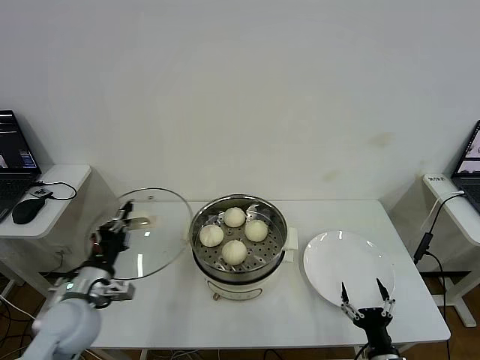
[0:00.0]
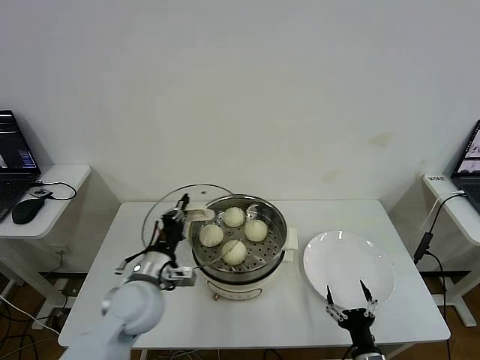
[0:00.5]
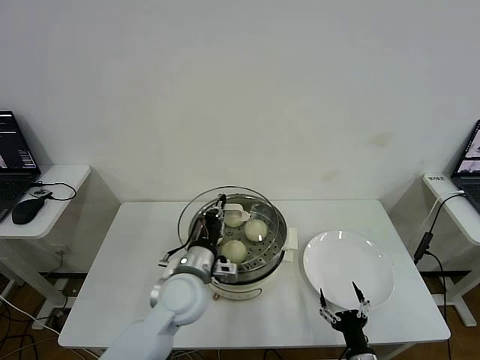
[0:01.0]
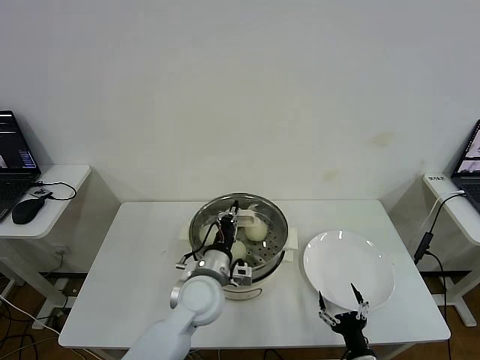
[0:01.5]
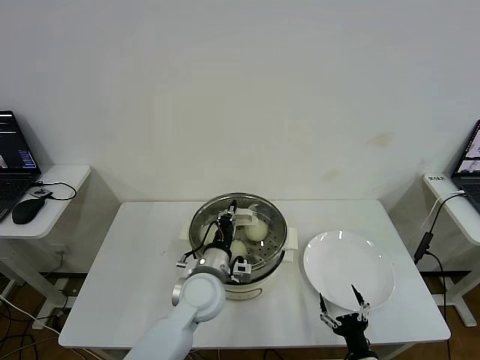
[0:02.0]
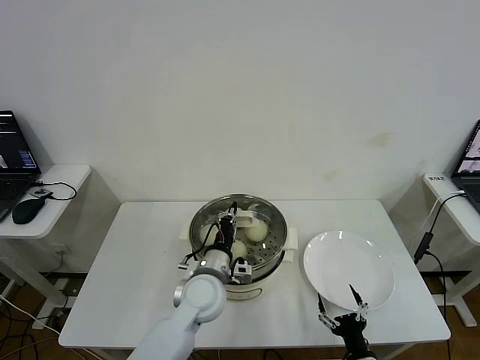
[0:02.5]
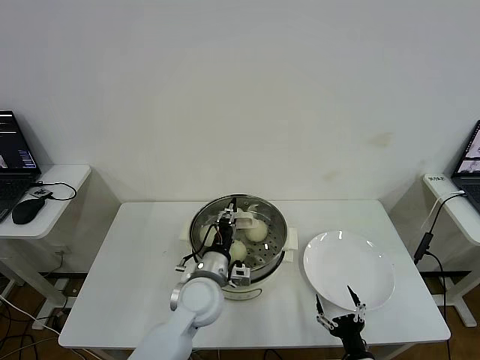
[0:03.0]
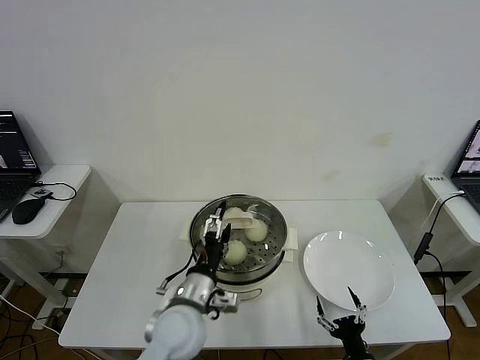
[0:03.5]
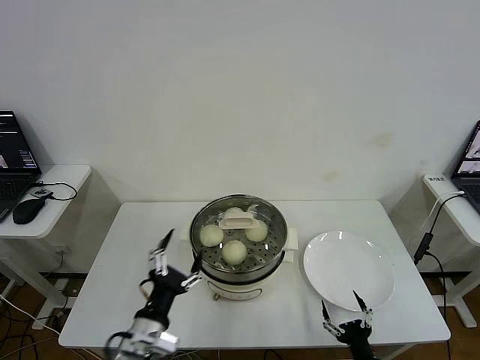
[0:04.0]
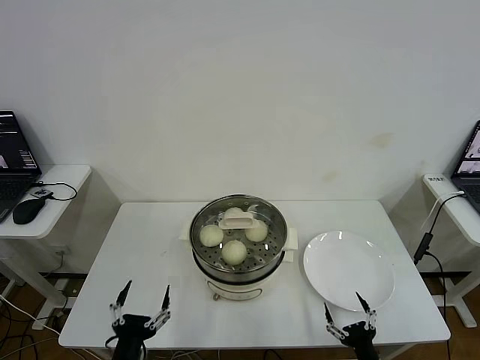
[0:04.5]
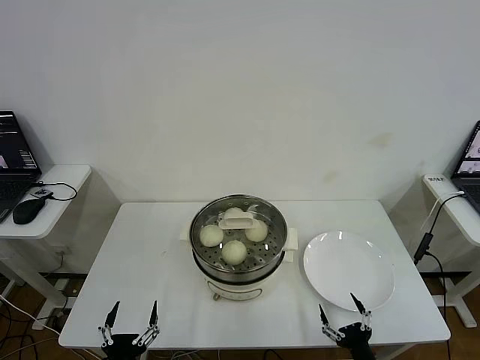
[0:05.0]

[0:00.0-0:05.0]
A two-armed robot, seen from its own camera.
Step, 0:00.0 to 0:03.0: Place the pot lid on the steamer with left gripper.
0:00.0 to 0:02.5: The left gripper is displaced to the right by roughly 25 cm.
0:02.5 to 0:05.0: The left gripper goes approximately 30 cm backward and to the left, and opens up.

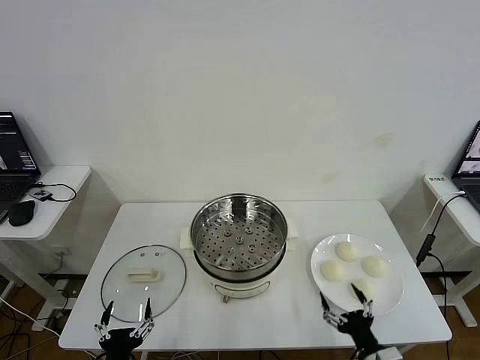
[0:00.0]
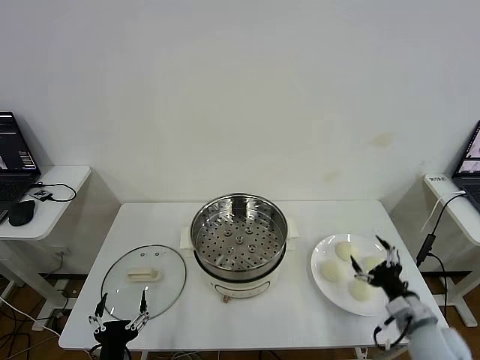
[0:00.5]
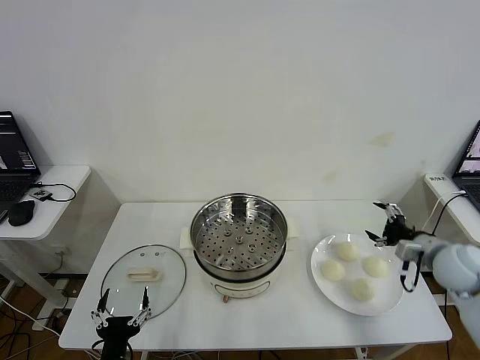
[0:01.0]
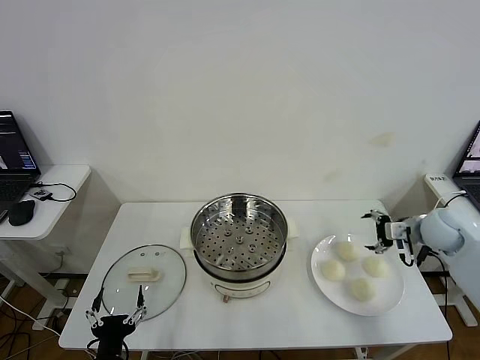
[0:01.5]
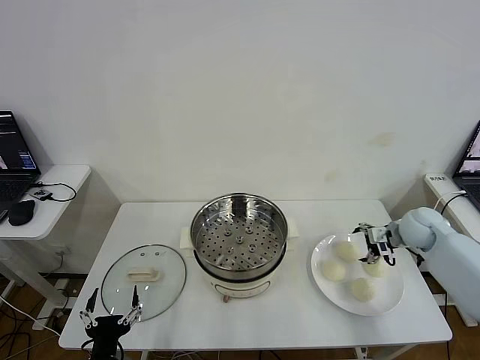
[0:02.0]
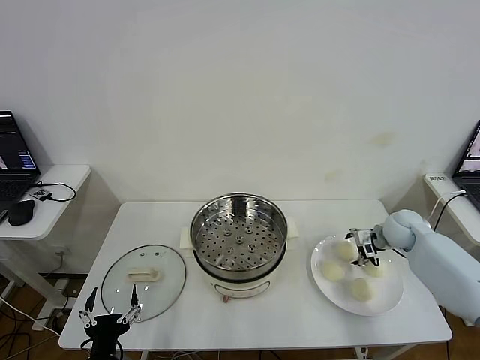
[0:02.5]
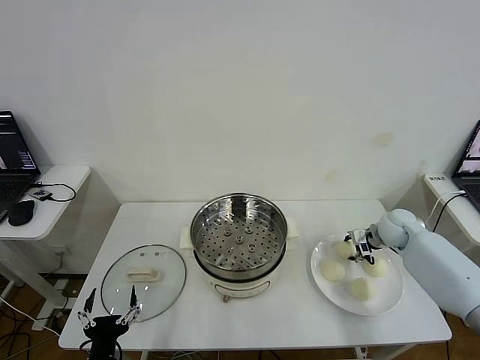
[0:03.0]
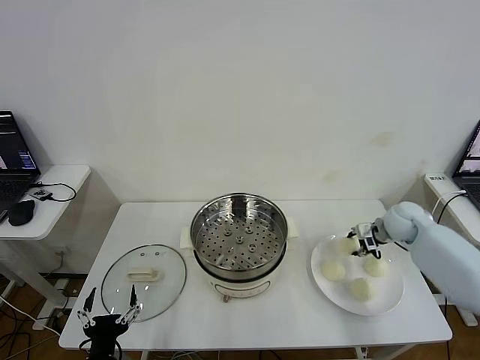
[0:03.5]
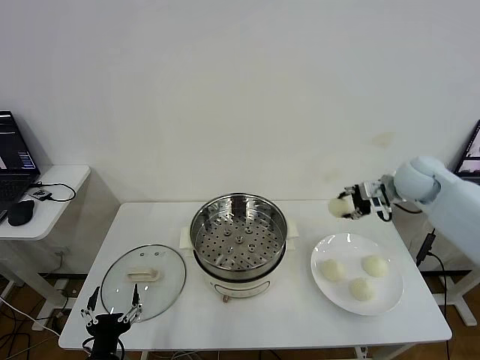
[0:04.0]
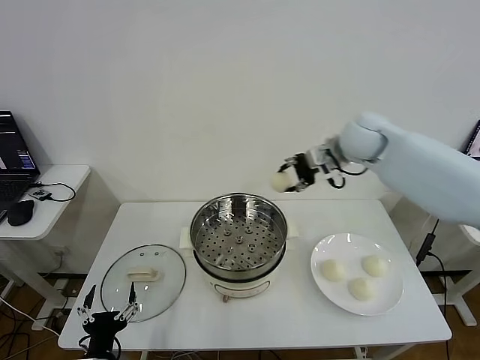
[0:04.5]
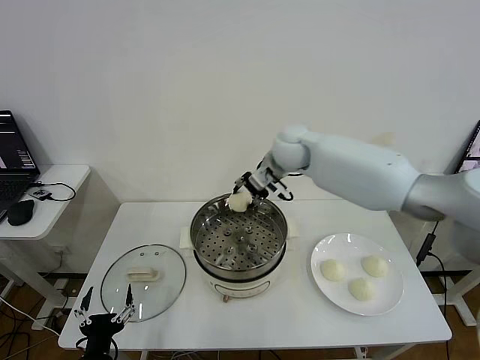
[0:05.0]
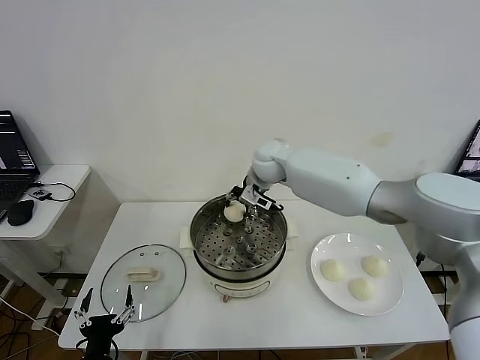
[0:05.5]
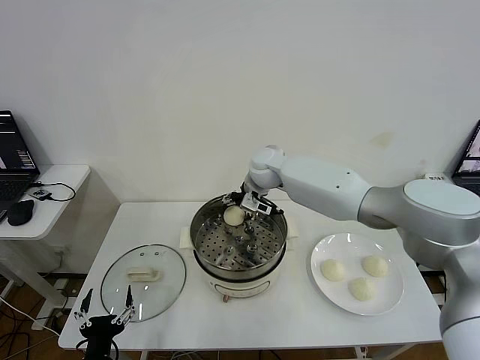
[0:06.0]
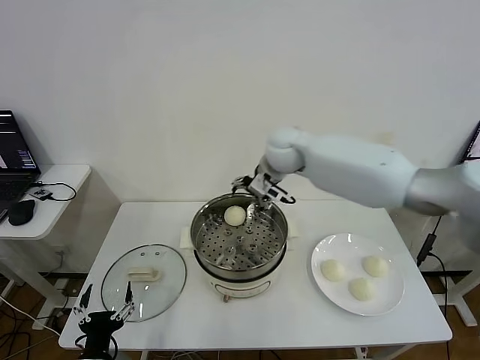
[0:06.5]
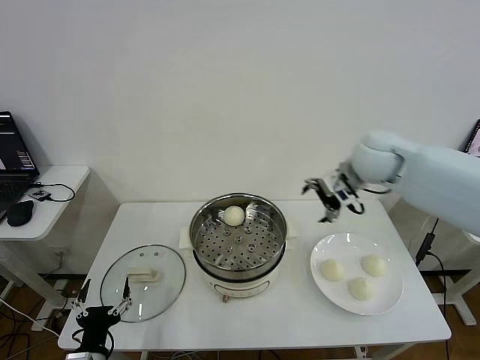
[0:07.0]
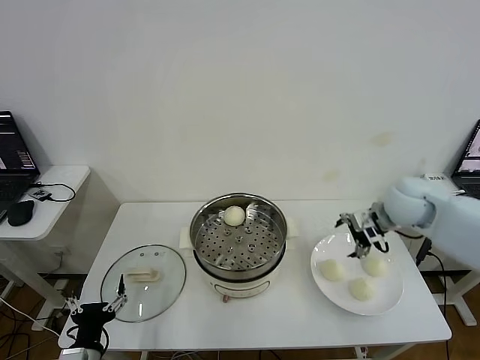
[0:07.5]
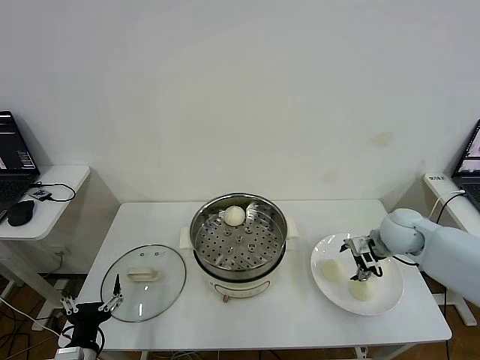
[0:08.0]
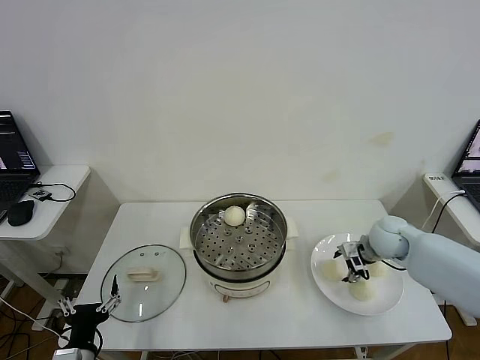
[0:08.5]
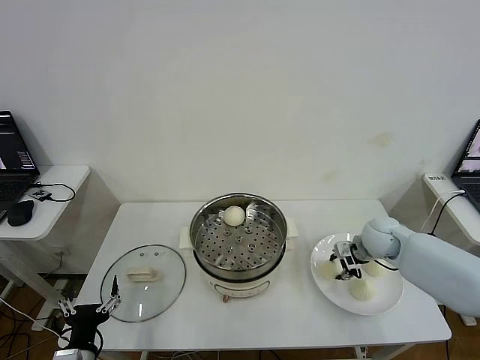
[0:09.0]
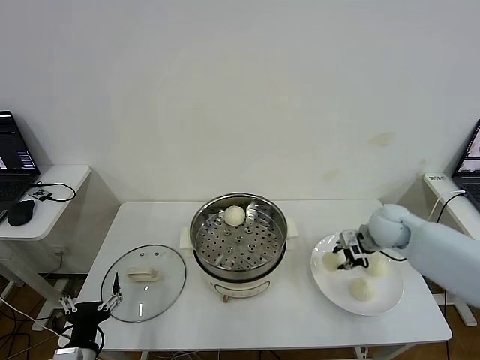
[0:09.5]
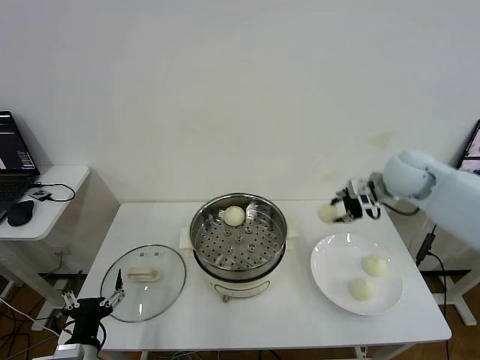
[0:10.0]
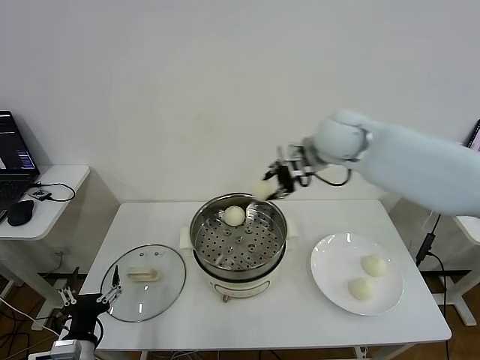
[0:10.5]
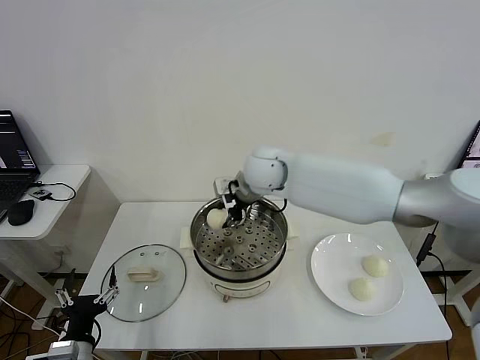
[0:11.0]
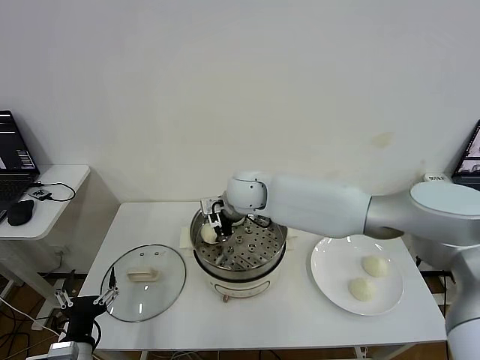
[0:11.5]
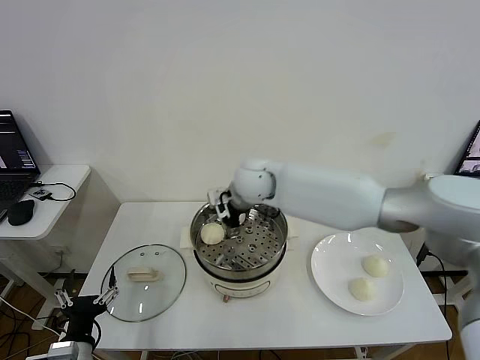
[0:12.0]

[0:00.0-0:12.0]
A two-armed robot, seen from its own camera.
Step, 0:00.0 to 0:03.0: Grasp the baozi in the plate with right gripper.
Step, 0:03.5 to 0:06.0: Place the baozi on the steamer with right gripper.
Step, 0:06.5 to 0:09.0: Grasp the baozi in the plate with right gripper.
Step, 0:09.5 to 0:11.5: Place the baozi on the steamer with right gripper.
0:02.0 to 0:04.0: The right gripper goes approximately 20 cm upward and to the left, and closes its fingers.
0:04.0 to 0:06.0: The right gripper goes roughly 30 cm to the left, and opens its fingers.
0:06.0 to 0:08.0: The right gripper heads to the right and backward, covering approximately 35 cm.
0:08.0 to 0:10.0: The right gripper shifts about 15 cm upward, and closes.
0:10.0 to 0:12.0: The right gripper goes about 25 cm to the left, and opens.

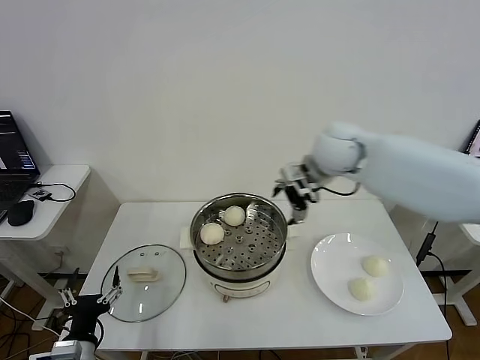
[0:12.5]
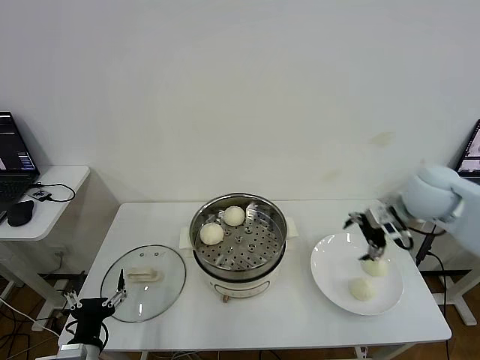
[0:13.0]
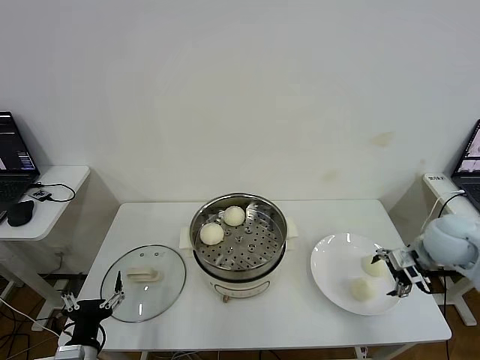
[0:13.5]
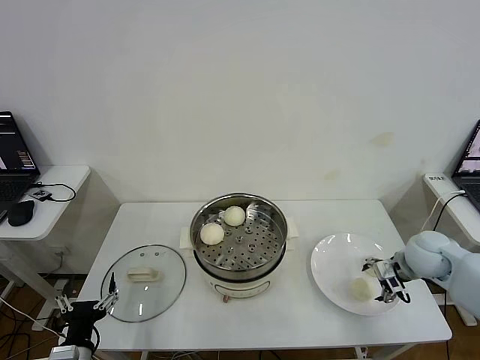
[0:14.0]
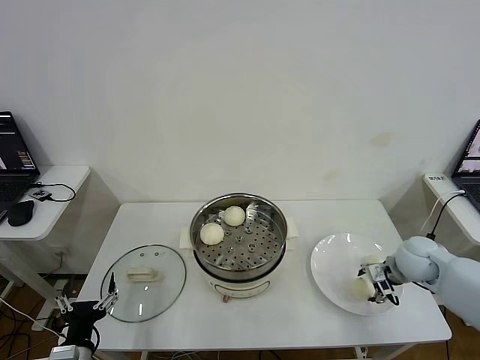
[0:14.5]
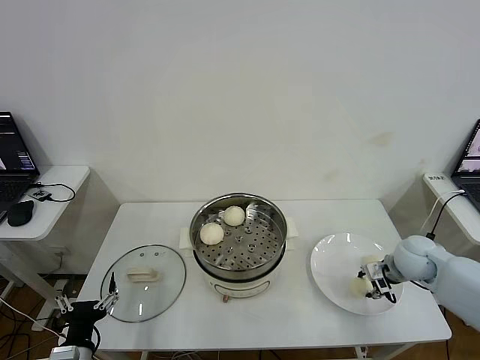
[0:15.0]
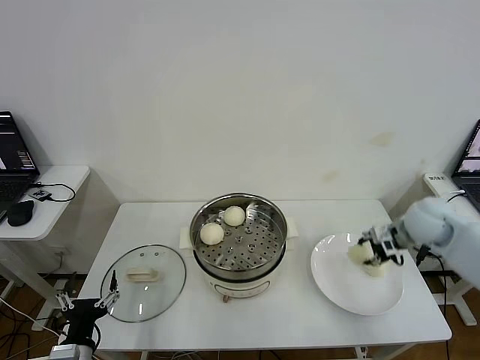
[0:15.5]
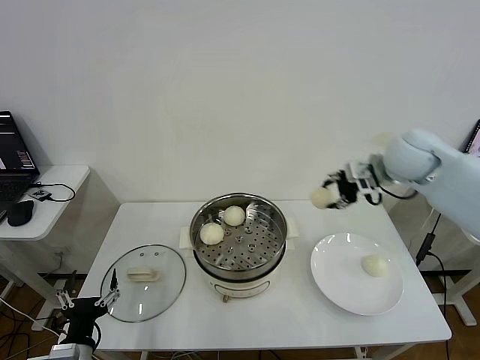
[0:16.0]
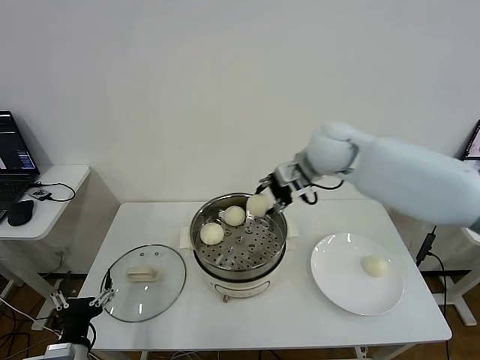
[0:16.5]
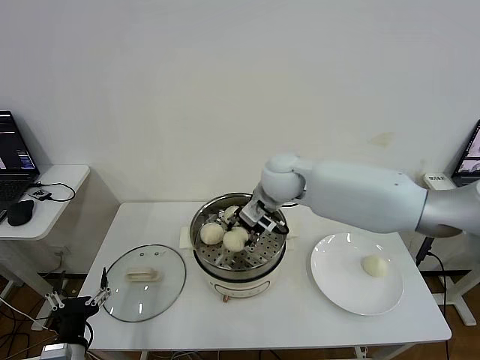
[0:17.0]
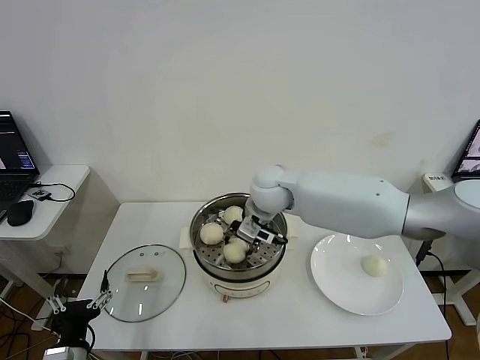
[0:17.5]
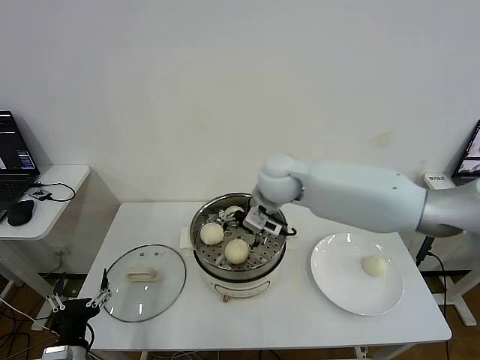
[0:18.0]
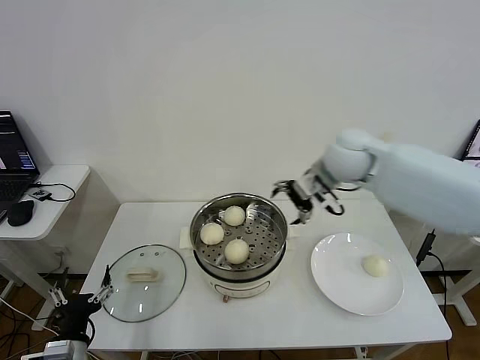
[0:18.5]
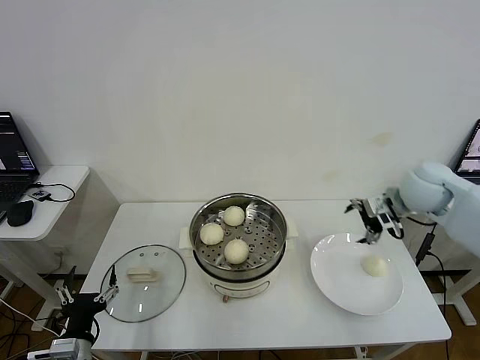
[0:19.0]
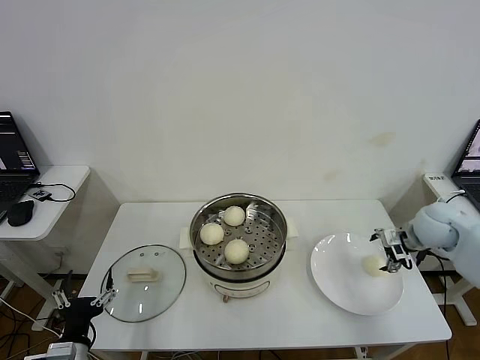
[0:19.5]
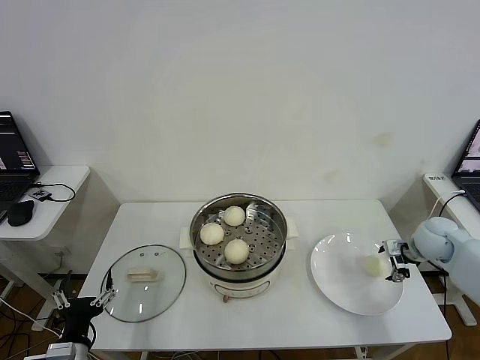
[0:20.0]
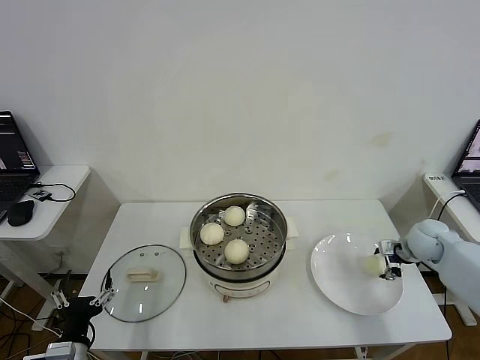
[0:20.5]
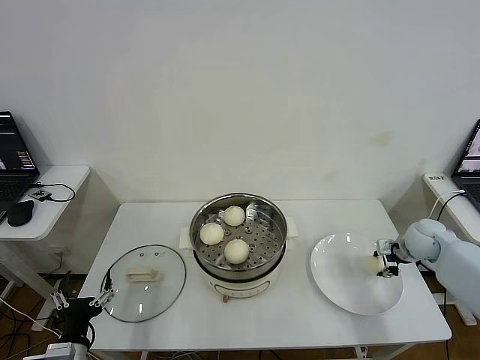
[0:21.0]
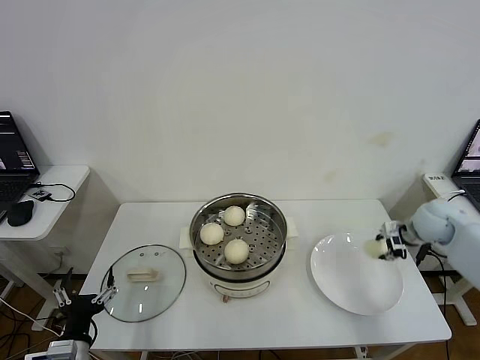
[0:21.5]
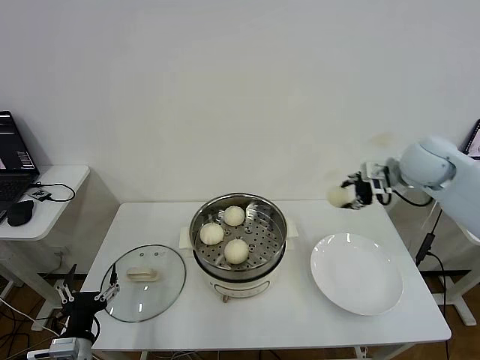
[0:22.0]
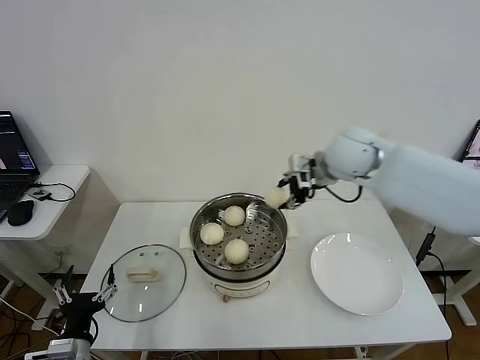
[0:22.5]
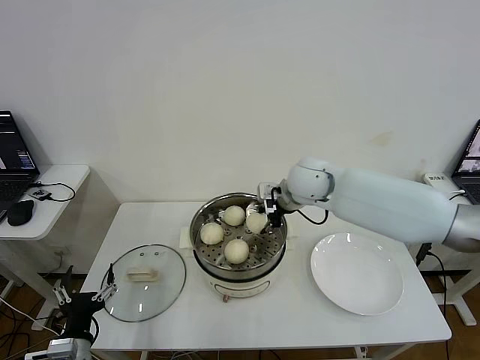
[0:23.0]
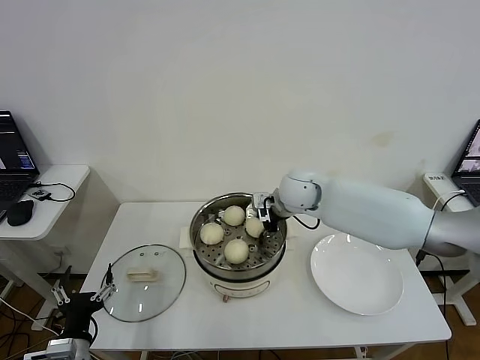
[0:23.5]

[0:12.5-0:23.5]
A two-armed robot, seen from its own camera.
Step, 0:12.5 to 0:14.5: Grasp the baozi in the plate with right gripper.
Step, 0:15.0 to 0:17.5: Place the baozi on the steamer with right gripper.
Step, 0:18.0 to 0:21.0: Grasp the baozi in the plate with right gripper.
0:12.5 to 0:14.5: The right gripper moves downward, to the right and backward, some 30 cm, and closes up.
0:14.5 to 0:16.0: The right gripper travels upward and forward by about 25 cm, and closes up.
0:16.0 to 0:18.0: The right gripper is displaced to the left by about 25 cm, and opens its fingers.
0:18.0 to 0:20.0: The right gripper heads to the right, covering some 40 cm.
0:20.0 to 0:21.5: The right gripper closes up.
0:21.5 to 0:23.5: The right gripper heads to the left, covering approximately 30 cm.
